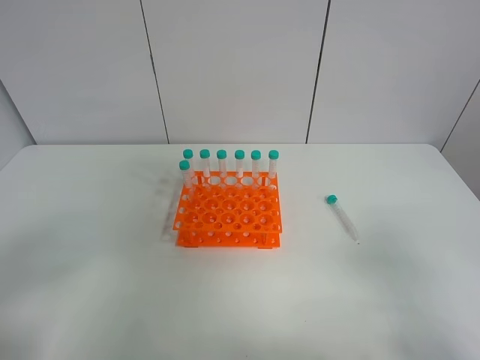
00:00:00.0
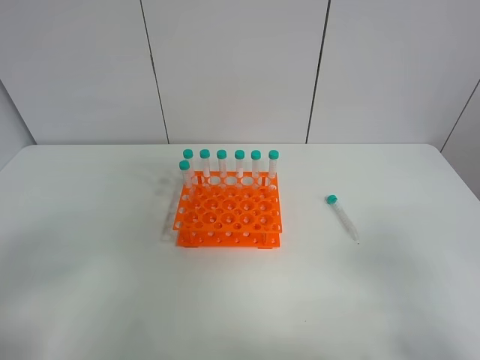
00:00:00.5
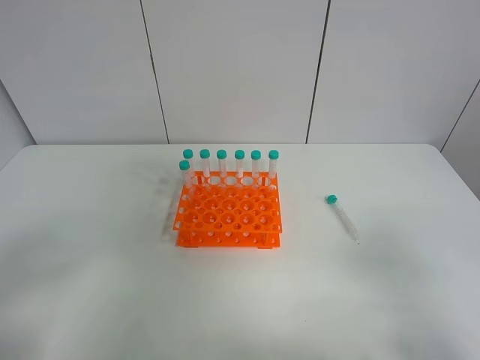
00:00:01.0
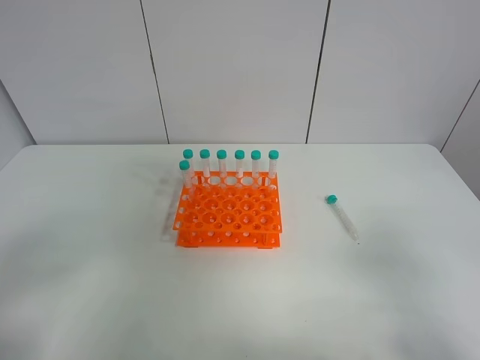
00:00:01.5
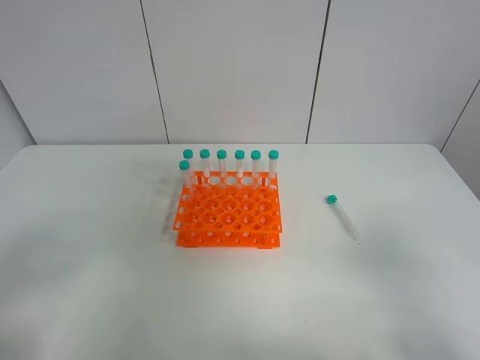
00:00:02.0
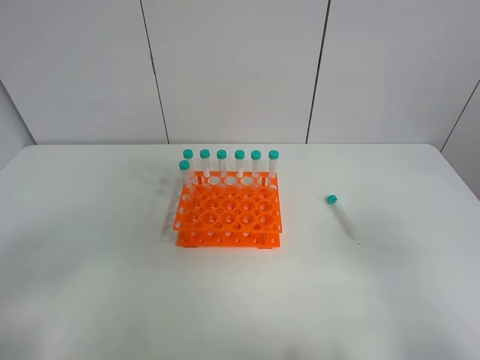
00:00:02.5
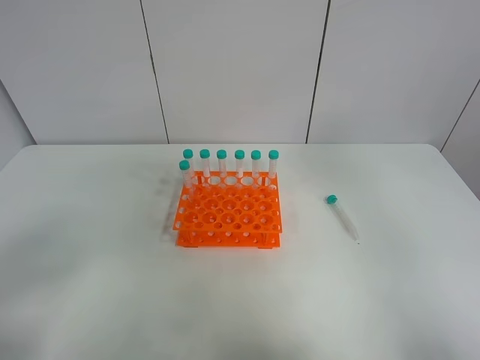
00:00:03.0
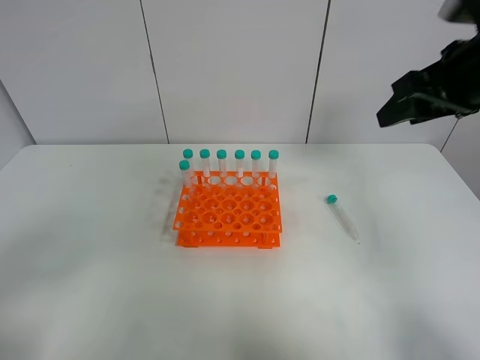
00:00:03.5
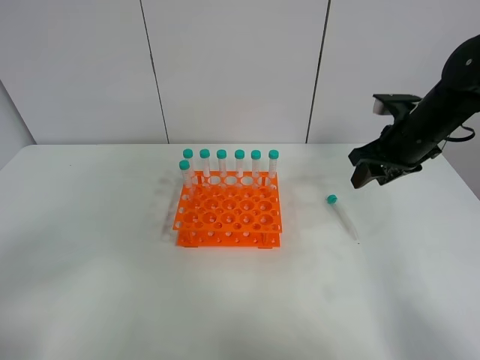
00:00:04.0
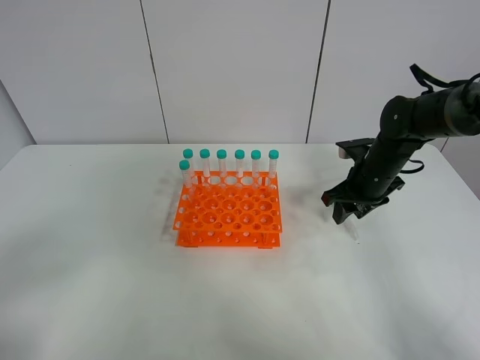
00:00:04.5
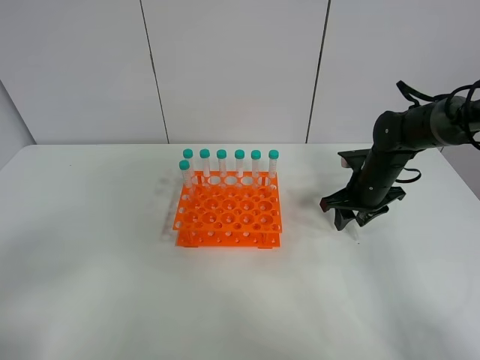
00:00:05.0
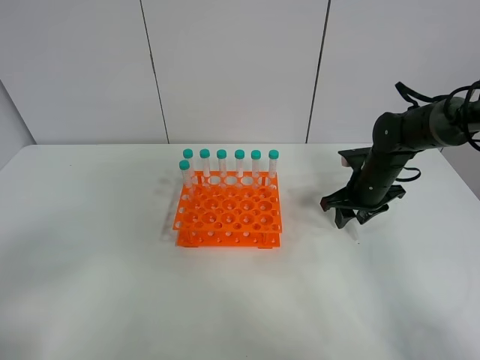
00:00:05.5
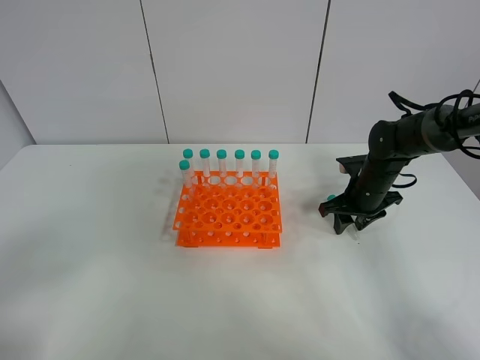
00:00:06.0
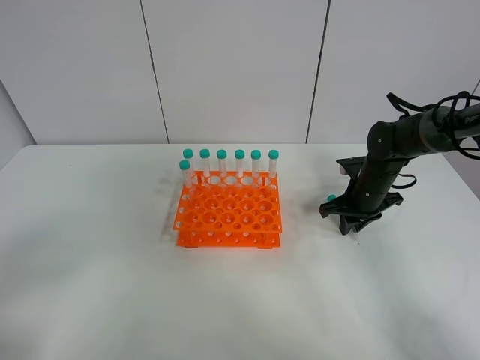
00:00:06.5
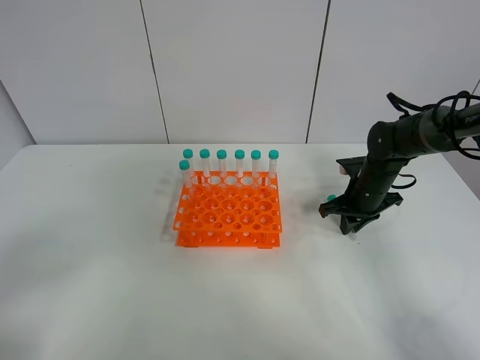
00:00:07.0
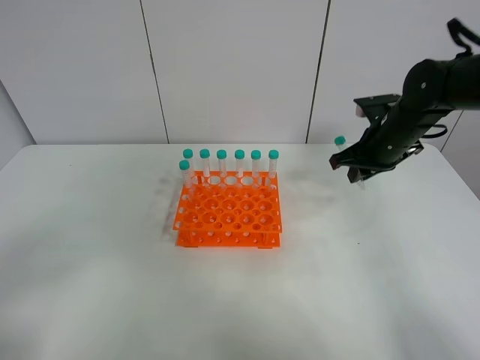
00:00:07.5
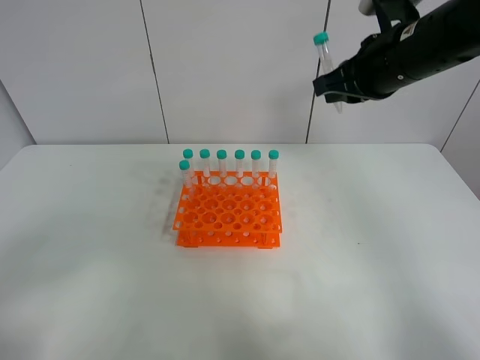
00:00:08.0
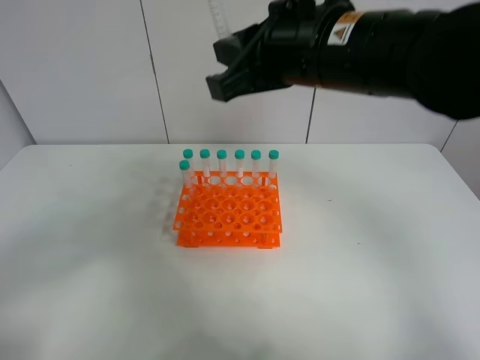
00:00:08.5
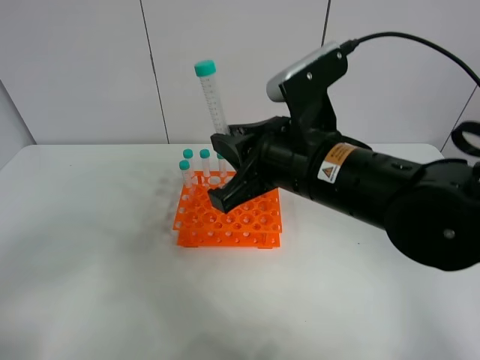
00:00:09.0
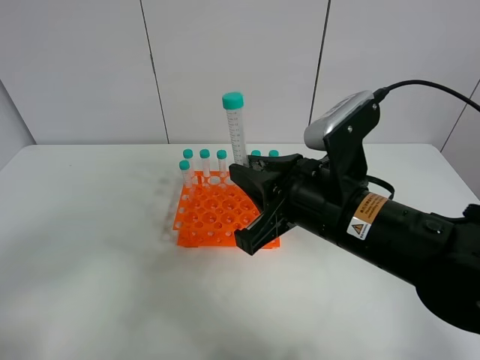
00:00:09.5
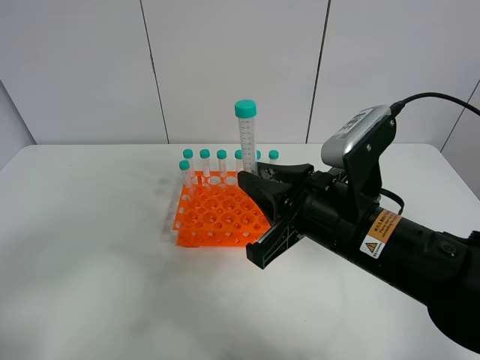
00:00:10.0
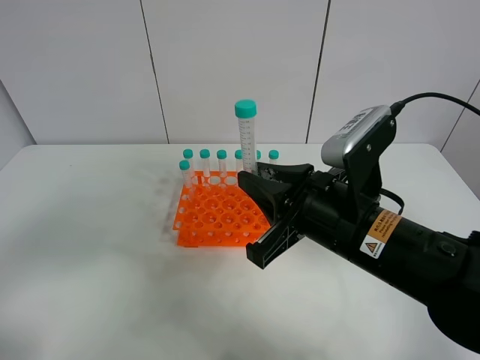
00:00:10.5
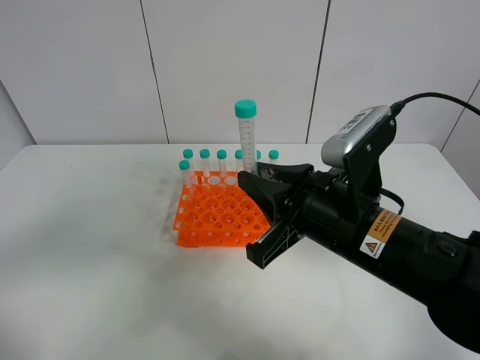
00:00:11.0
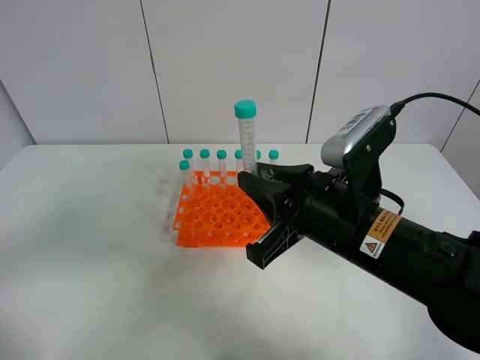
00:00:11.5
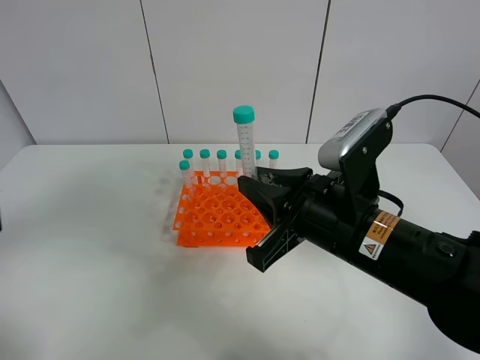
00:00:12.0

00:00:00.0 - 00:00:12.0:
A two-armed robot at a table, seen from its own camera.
Task of the whole recording: Put the test tube on the table back onto the test tube rack.
Step, 00:00:00.0 - 00:00:06.5: Pick up the test tube with the right gripper.
00:00:00.0 - 00:00:02.0: Both grippers stay put.
00:00:02.0 - 00:00:04.0: The right gripper is displaced forward by roughly 35 cm.
00:00:04.0 - 00:00:06.0: The right gripper heads downward, covering some 10 cm.
00:00:06.0 - 00:00:08.0: The right gripper goes roughly 25 cm upward, and closes.
00:00:08.0 - 00:00:10.0: The right gripper is displaced backward, downward and to the left by about 20 cm.
00:00:10.0 - 00:00:12.0: The left gripper is displaced upward and forward by about 10 cm.

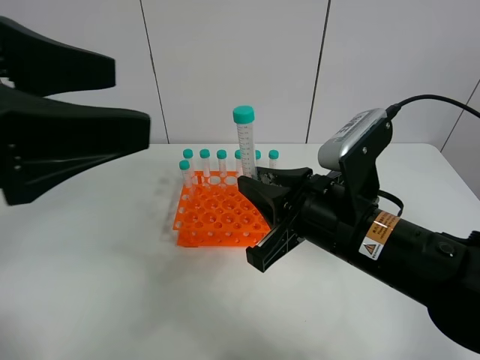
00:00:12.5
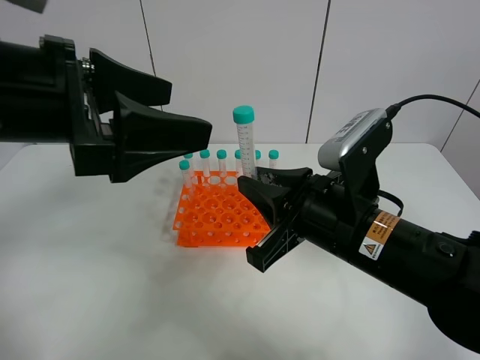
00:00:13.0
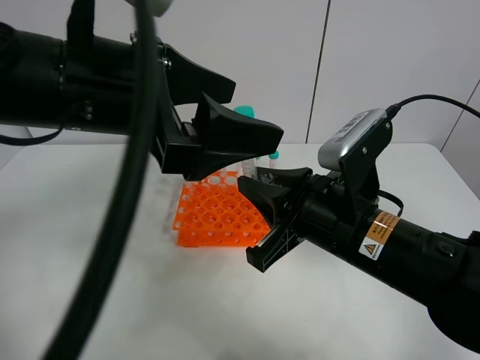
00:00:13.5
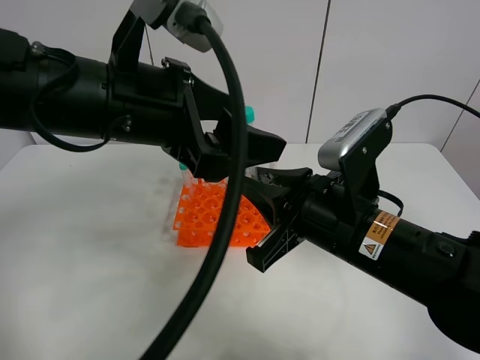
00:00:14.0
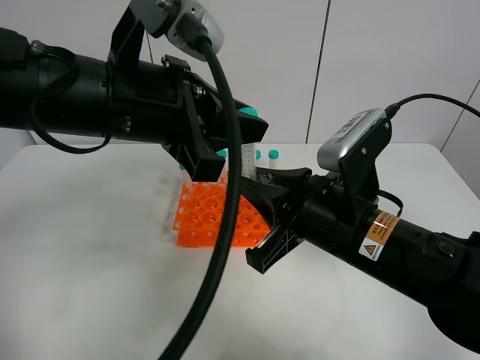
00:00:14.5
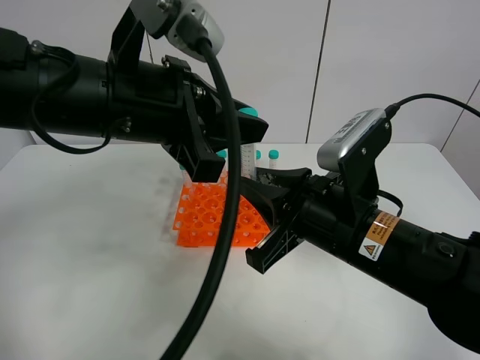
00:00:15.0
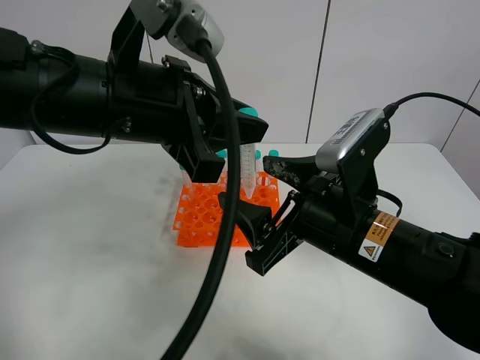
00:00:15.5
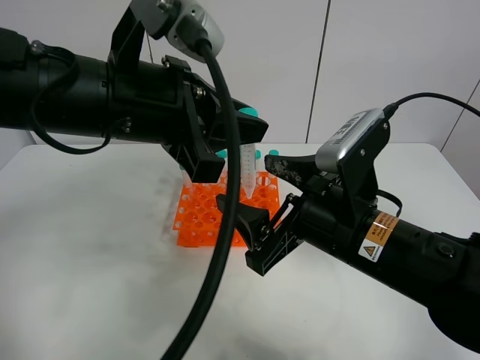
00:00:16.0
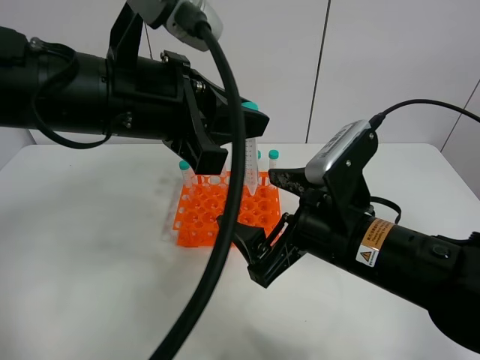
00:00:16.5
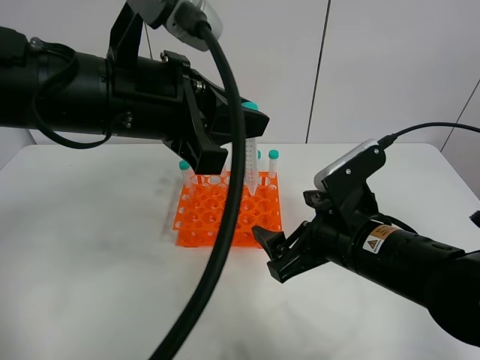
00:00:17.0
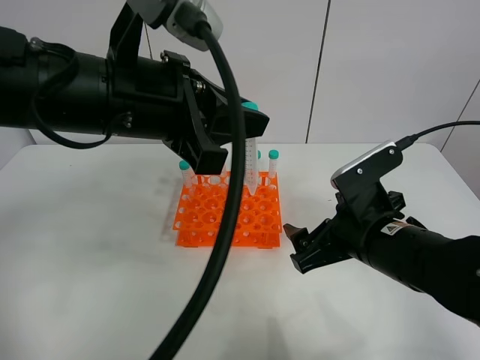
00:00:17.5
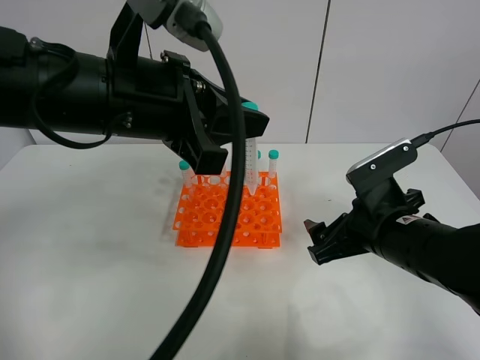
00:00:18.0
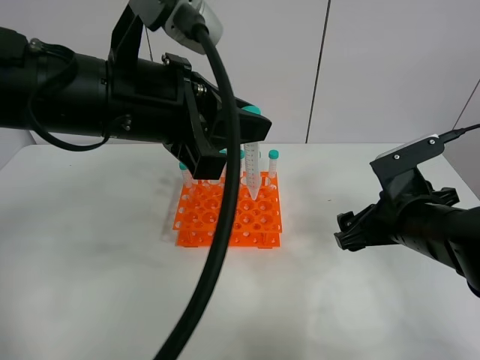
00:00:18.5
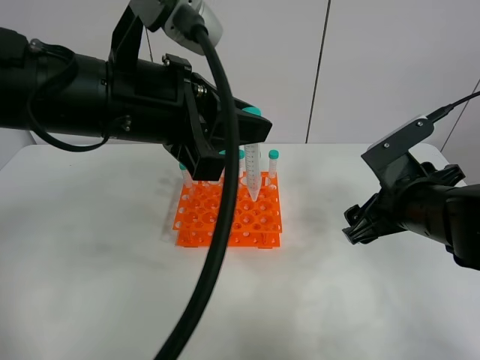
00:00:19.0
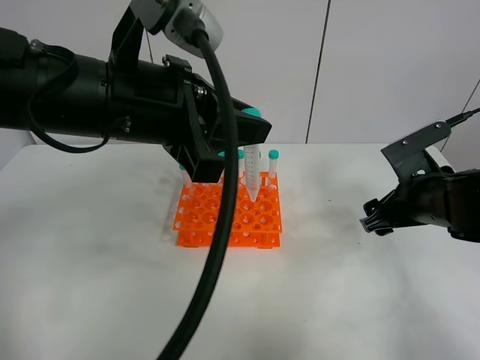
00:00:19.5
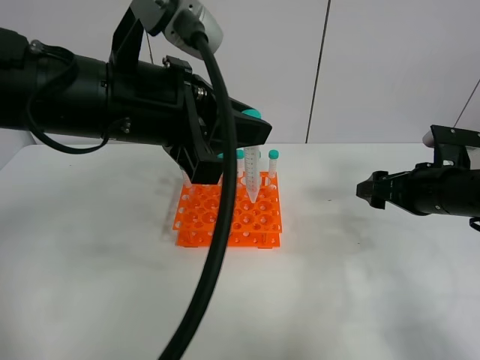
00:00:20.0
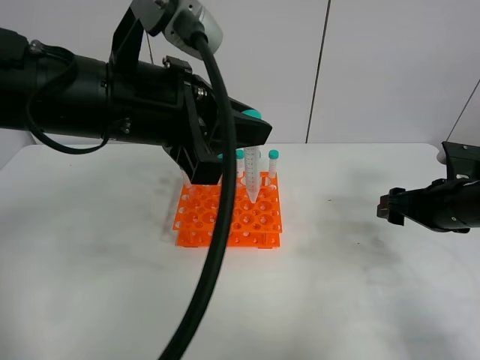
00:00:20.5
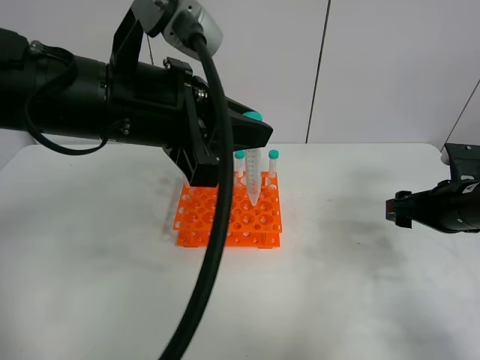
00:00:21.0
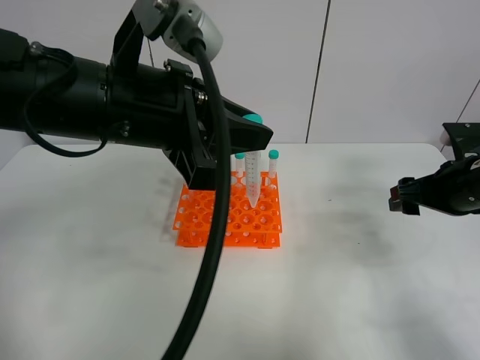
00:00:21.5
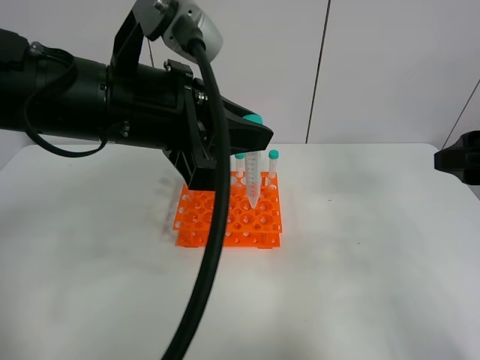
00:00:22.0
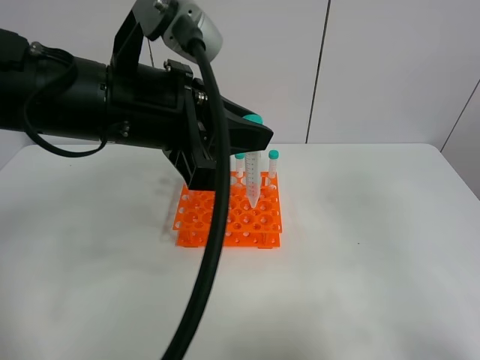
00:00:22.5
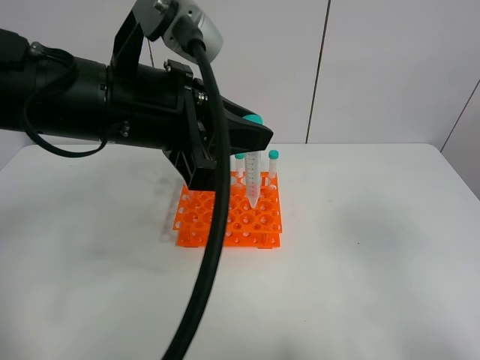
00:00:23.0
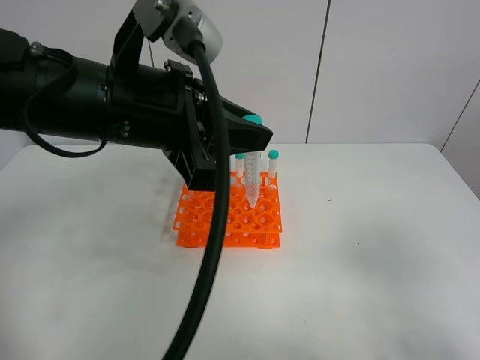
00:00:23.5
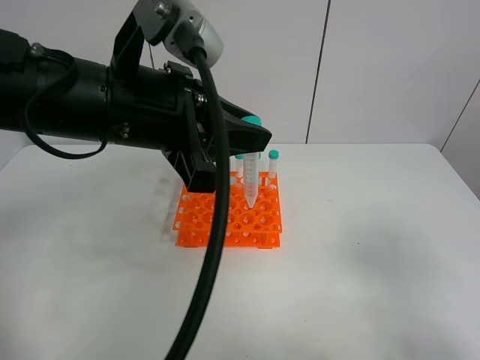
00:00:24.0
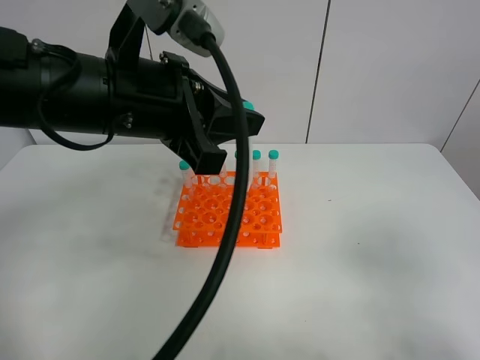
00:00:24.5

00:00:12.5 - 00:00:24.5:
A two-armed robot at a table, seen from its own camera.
Task of the whole recording: Put the test tube on the table back onto the test tube rack.
00:00:12.5 - 00:00:14.5: The left gripper is displaced to the right and forward by some 10 cm, and closes up.
00:00:14.5 - 00:00:16.5: The right gripper opens.
00:00:16.5 - 00:00:18.5: The right gripper is displaced to the right by about 10 cm.
00:00:18.5 - 00:00:20.5: The right gripper heads to the right, covering roughly 10 cm.
00:00:20.5 - 00:00:22.5: The right gripper is displaced backward and upward by some 25 cm.
00:00:22.5 - 00:00:24.5: The right gripper heads backward and downward, covering roughly 10 cm.

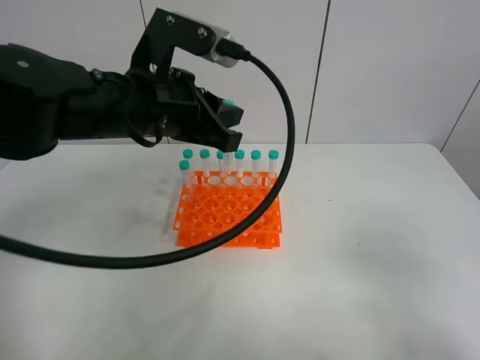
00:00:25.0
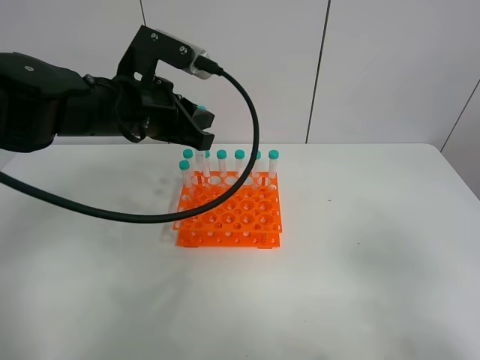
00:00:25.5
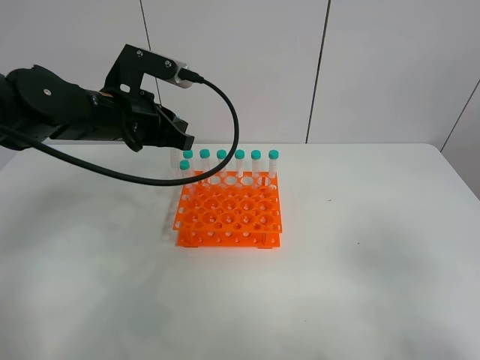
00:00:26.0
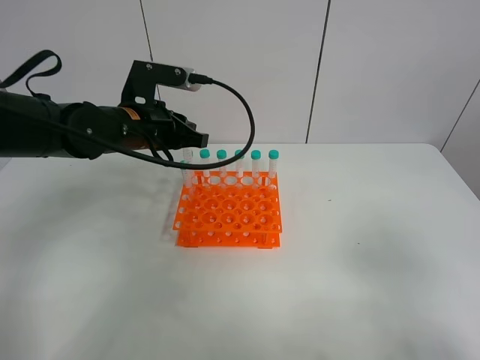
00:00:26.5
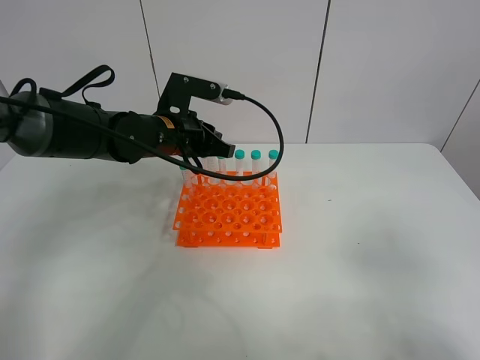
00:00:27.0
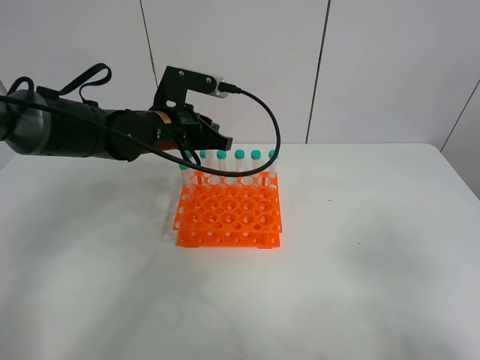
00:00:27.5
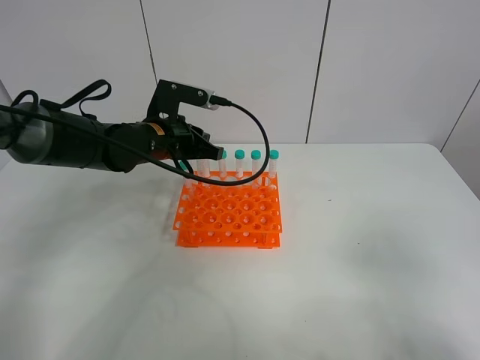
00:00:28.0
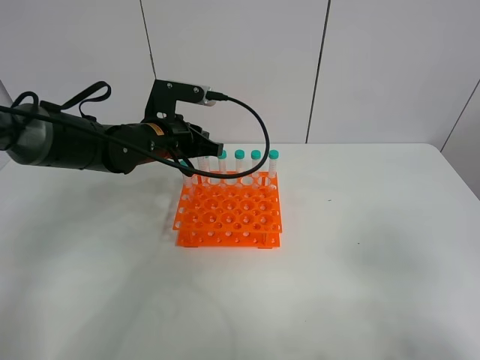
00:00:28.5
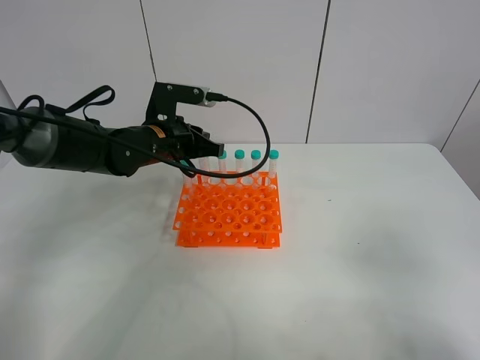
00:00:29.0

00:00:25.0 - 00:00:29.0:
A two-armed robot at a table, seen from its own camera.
Task of the whole recording: Put the test tube on the table back onto the test tube rack.
00:00:25.0 - 00:00:27.0: The left gripper heads forward and downward, covering approximately 15 cm.
00:00:27.0 - 00:00:29.0: The grippers stay close to where they were, moving slightly.
